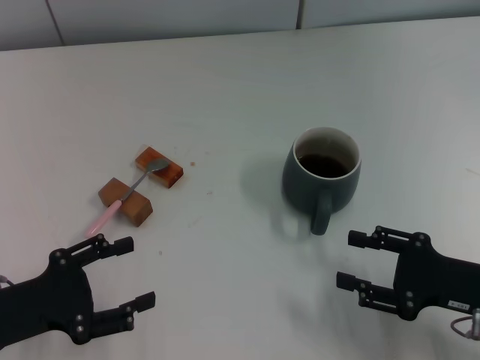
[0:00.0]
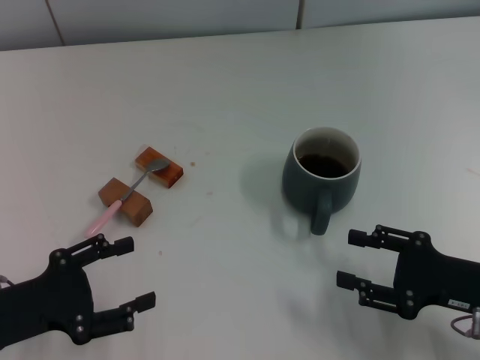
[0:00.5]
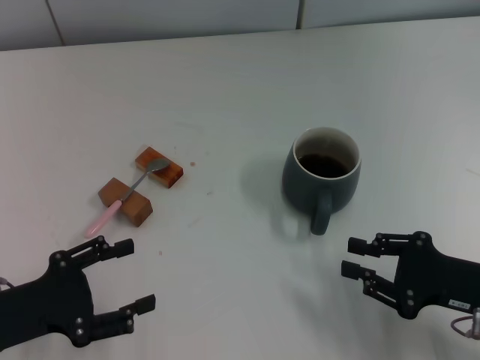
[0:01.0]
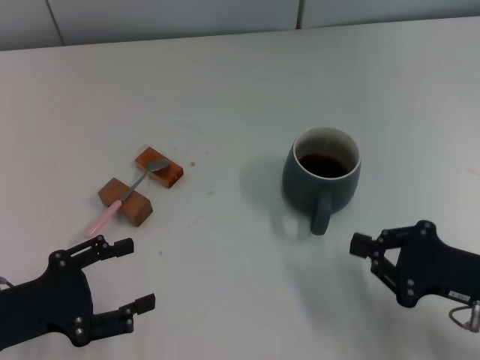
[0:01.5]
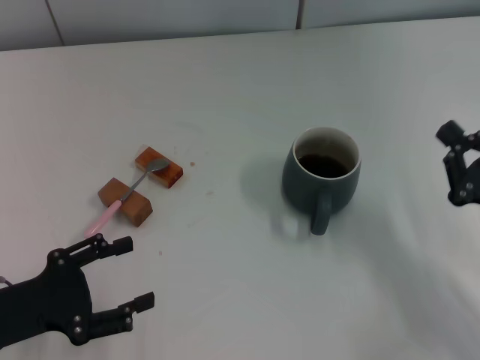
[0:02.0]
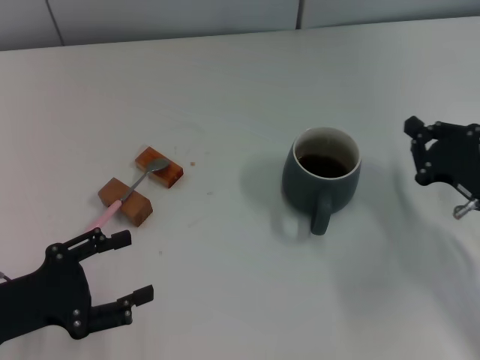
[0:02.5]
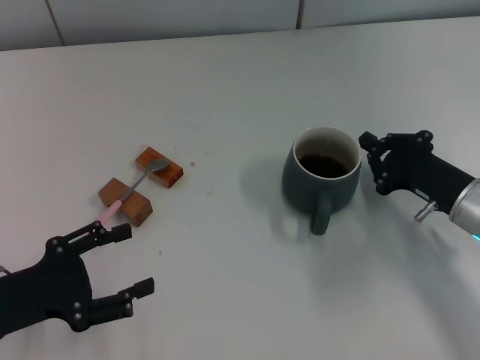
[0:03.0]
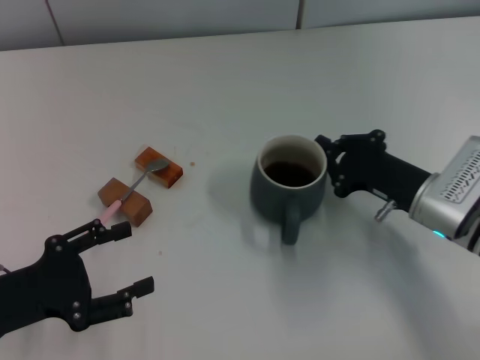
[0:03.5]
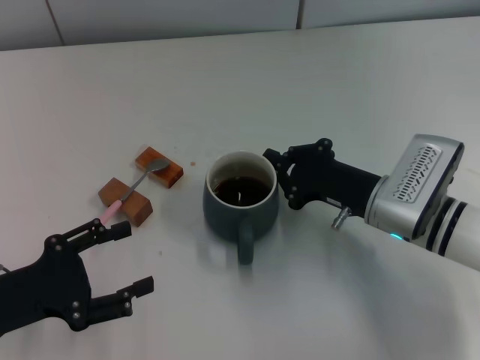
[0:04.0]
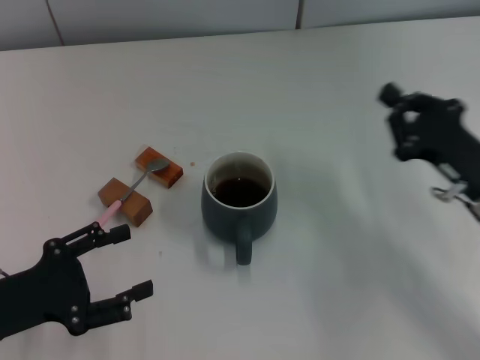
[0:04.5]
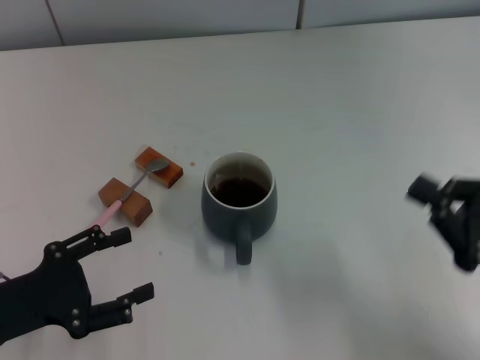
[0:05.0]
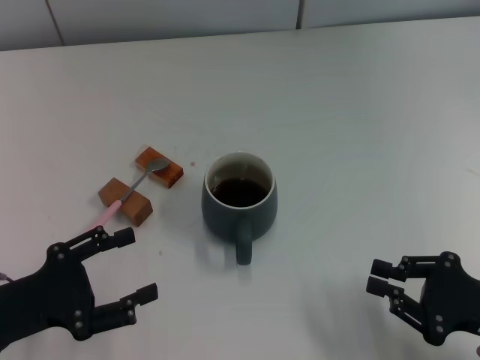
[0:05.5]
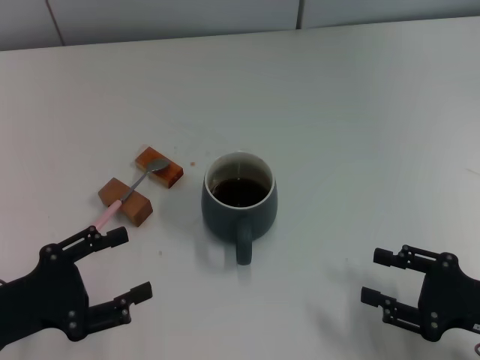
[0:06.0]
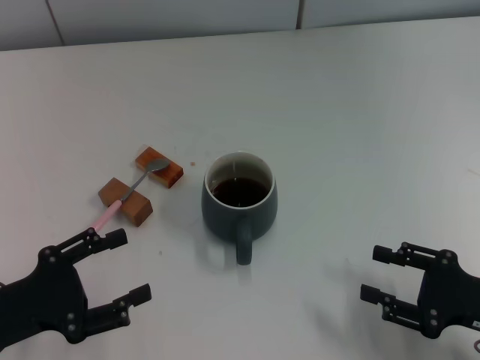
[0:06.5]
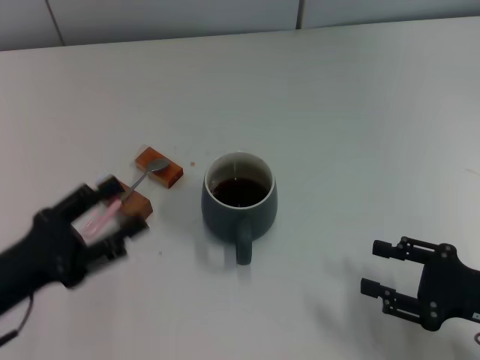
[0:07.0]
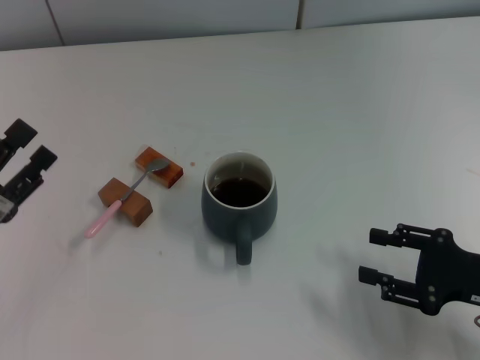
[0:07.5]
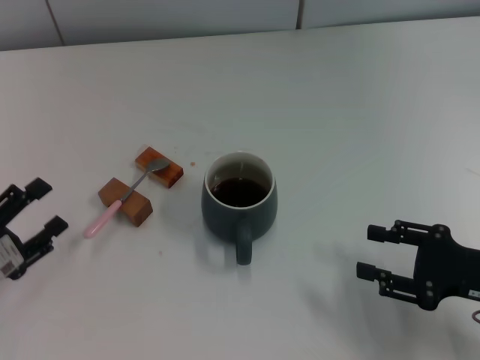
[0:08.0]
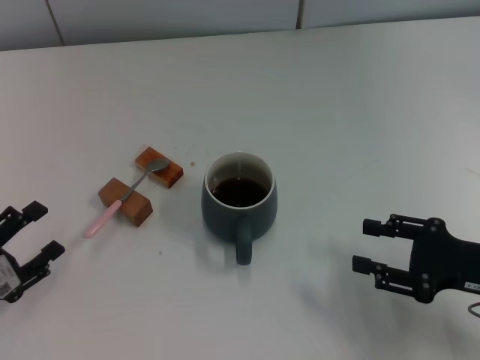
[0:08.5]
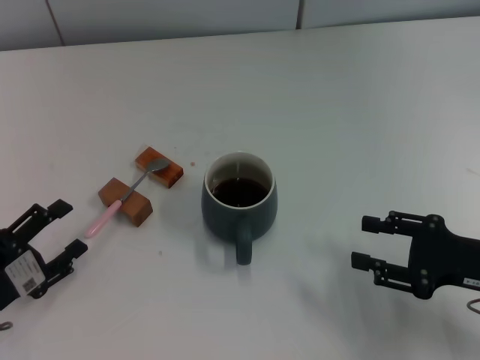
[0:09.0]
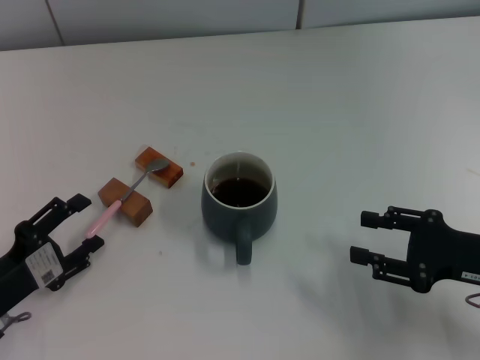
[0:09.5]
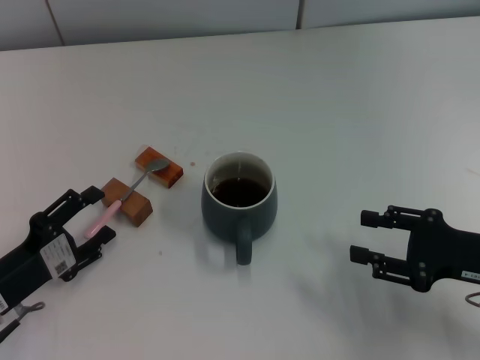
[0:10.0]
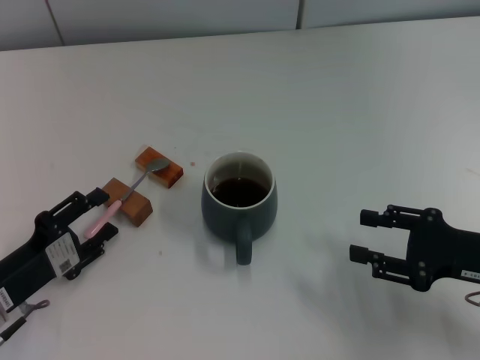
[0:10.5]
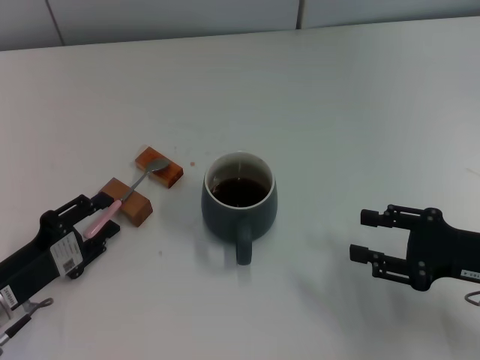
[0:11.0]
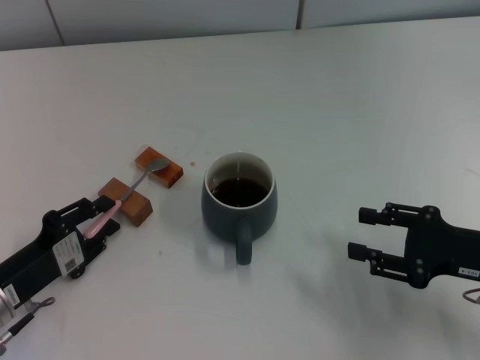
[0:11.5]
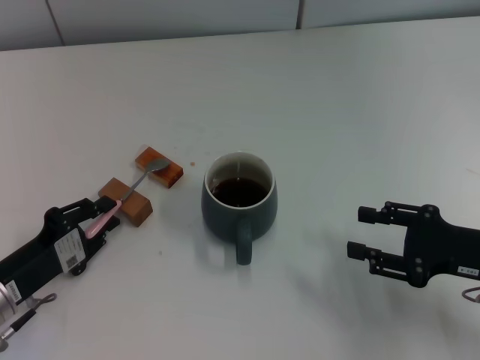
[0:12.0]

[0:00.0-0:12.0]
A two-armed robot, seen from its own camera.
Task of the whole recording: Move the grey cup to the center, lift the pink spoon, stir it three times in the cup, and put the spoon into the cup.
Step, 0:00.0 to 0:04.0: Move the cup with coffee to the center of view with the right gripper.
0:00.0 to 0:02.0: The right gripper closes.
0:02.0 to 0:04.0: The right gripper shifts approximately 15 cm to the left and forward.
0:04.0 to 0:06.0: The right gripper travels backward and to the right by approximately 20 cm, and opens its fingers.
0:08.0 to 0:10.0: The grippers move only a little.
0:10.0 to 0:12.0: The left gripper closes up.

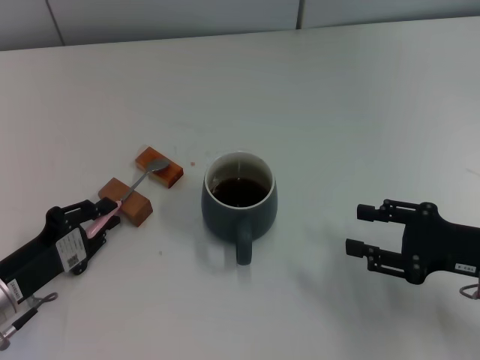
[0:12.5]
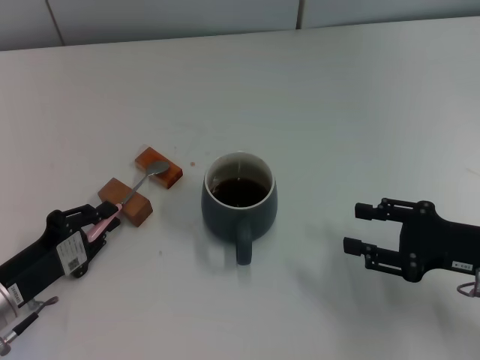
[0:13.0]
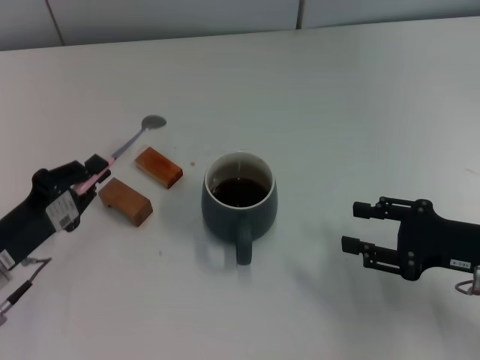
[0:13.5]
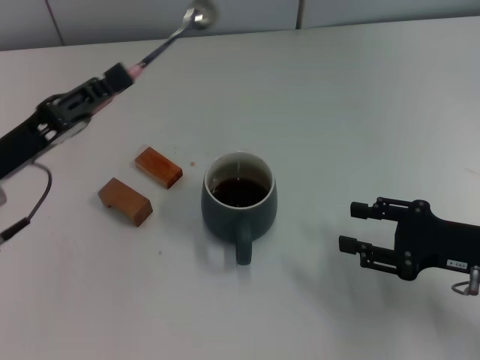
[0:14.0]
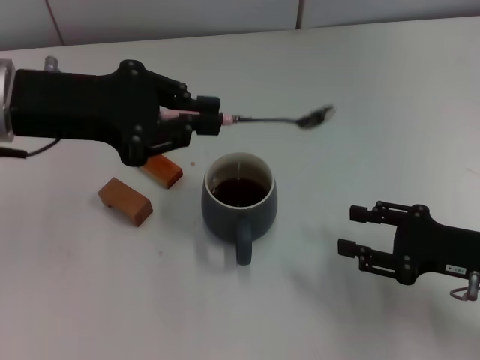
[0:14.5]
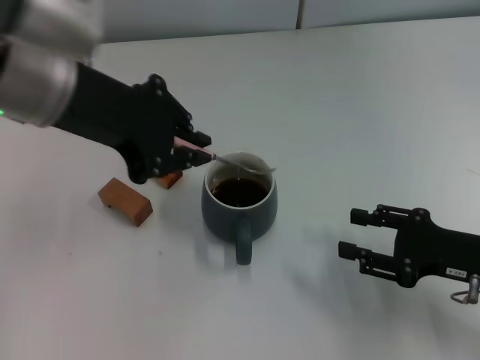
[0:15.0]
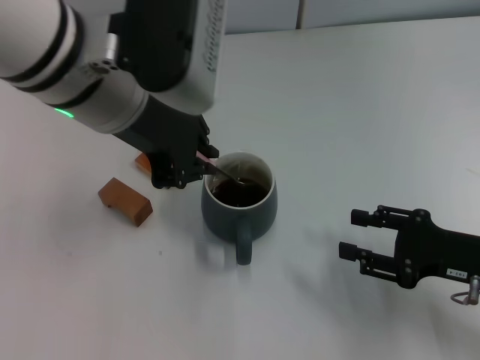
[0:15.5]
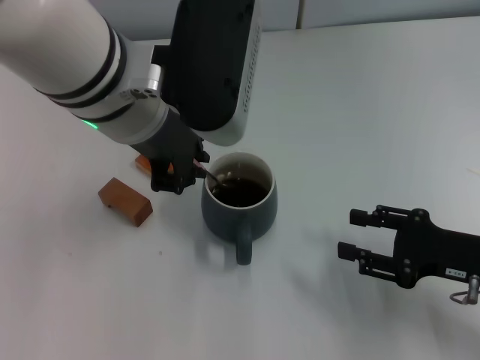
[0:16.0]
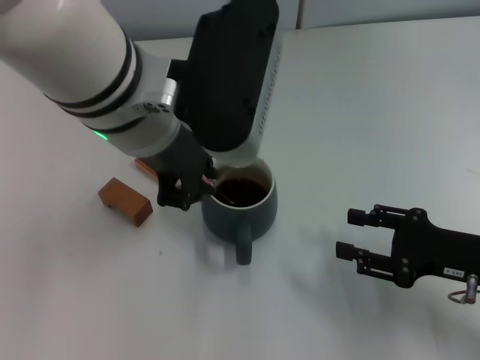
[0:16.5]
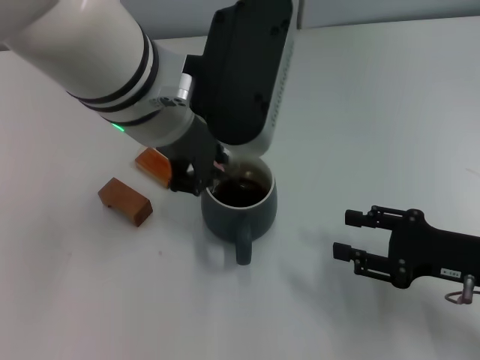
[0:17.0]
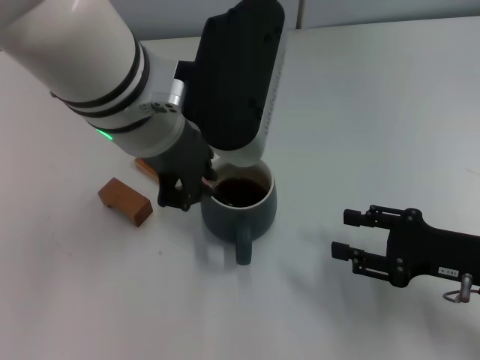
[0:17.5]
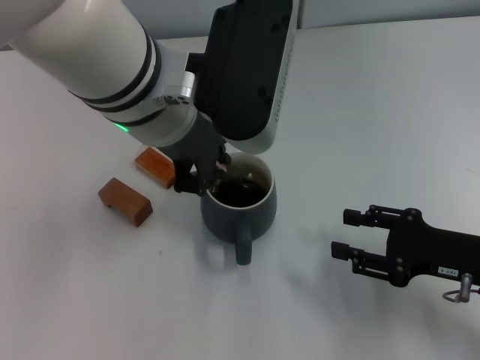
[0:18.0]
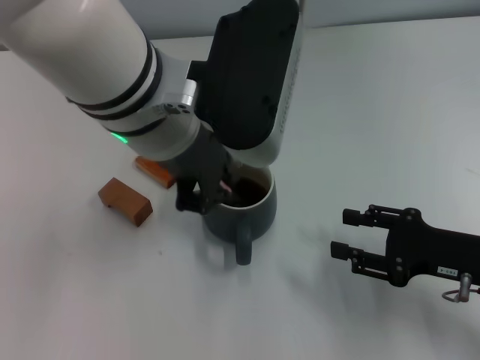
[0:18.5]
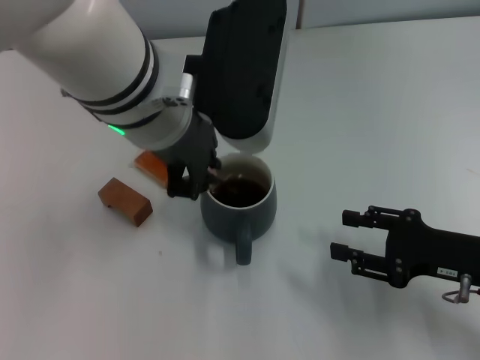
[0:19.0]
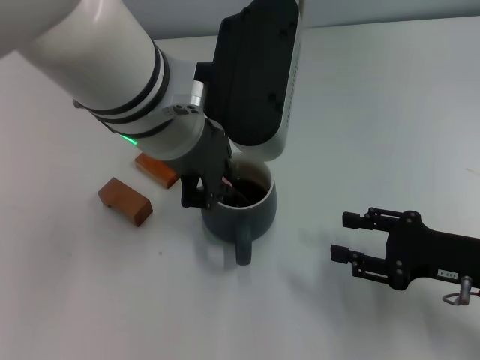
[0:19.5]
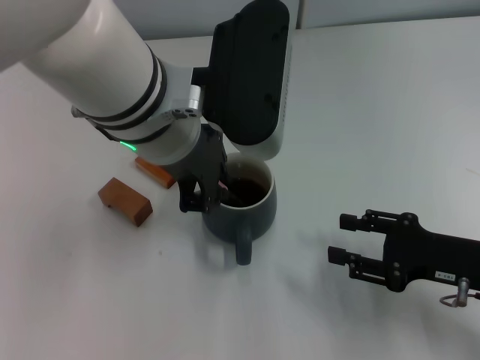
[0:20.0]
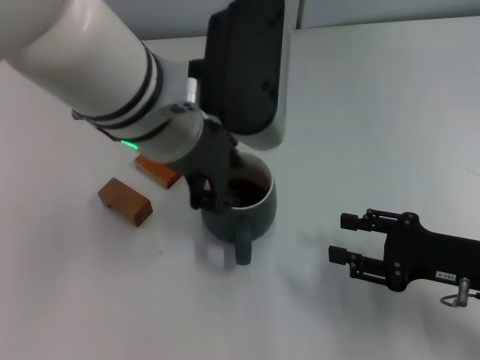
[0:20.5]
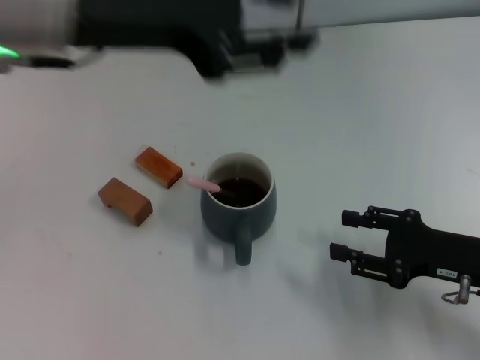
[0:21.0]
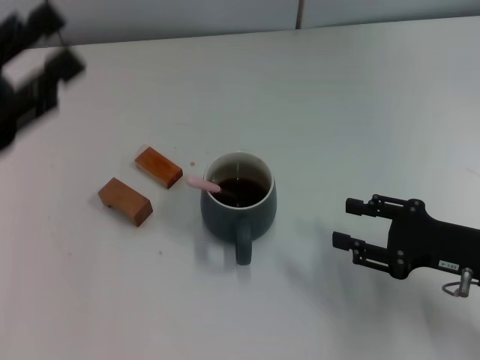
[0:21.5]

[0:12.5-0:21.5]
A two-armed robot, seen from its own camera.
Task of the whole recording: Move the grey cup to the center, lift the pink spoon, stir it three times in the cup, and put the spoon into the cup.
Step, 0:14.0 to 0:20.5: Stir the coffee in the cup with the left gripper.
0:12.5 to 0:14.5: The left gripper heads upward and forward, covering approximately 25 cm.
0:14.5 to 0:17.0: The left gripper goes about 15 cm to the right.
0:17.0 to 0:19.5: The grippers stay close to where they were, moving slightly.
0:19.5 to 0:21.5: The left gripper is displaced to the left by roughly 25 cm, and opens its fingers.

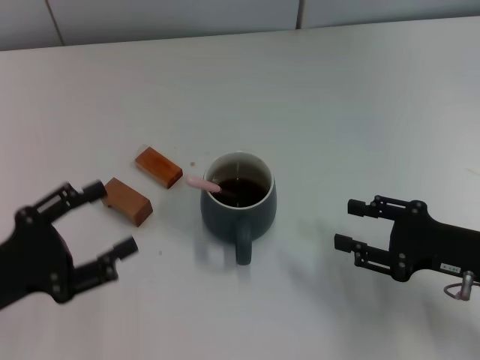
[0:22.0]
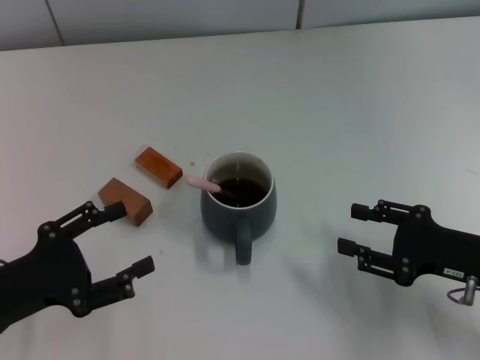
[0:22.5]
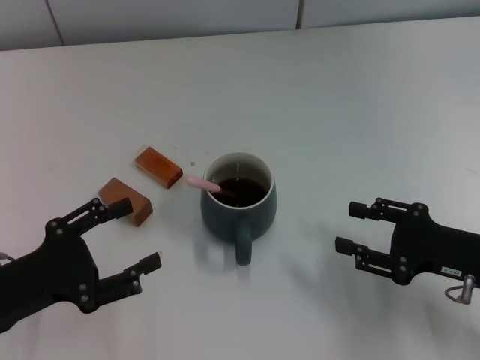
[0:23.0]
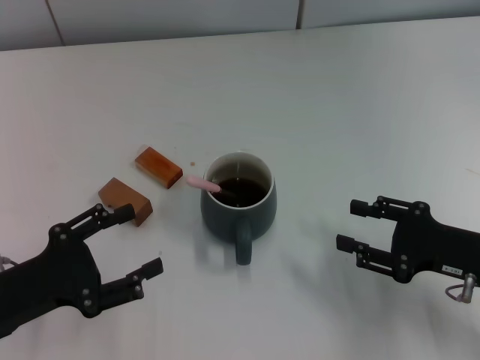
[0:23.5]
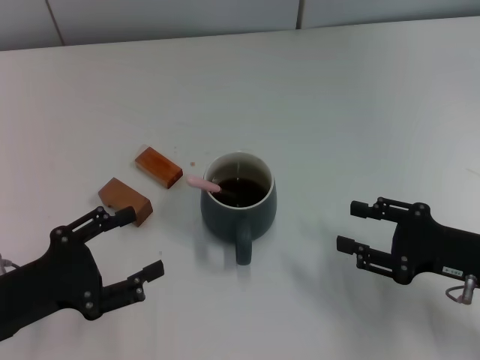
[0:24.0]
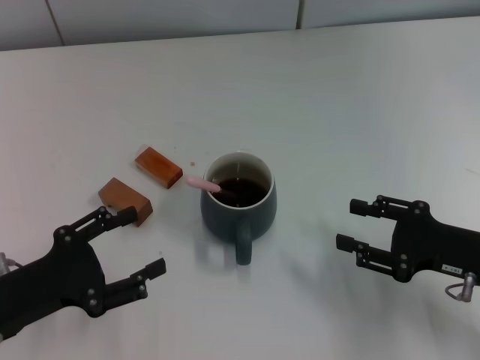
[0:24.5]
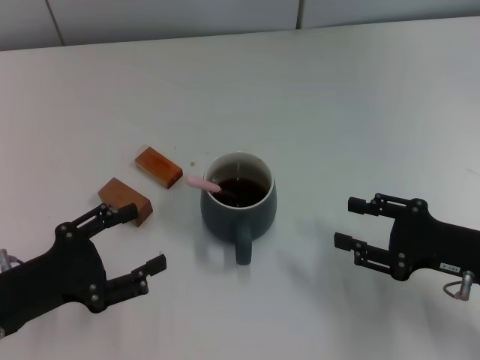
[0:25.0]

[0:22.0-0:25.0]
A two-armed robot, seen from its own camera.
Task of the whole recording: Move the grey cup to the center, lift the pink spoon, stir it three times in the cup, and put the spoon into the cup.
0:22.0 to 0:23.5: The grippers stay close to where they were, moving slightly.
0:23.5 to 0:25.0: Both grippers stay put.
